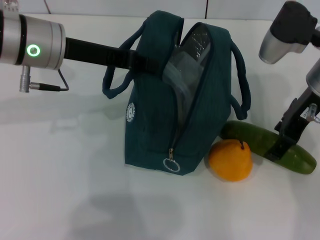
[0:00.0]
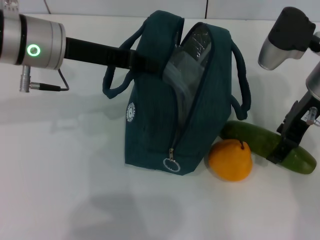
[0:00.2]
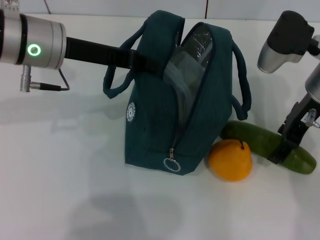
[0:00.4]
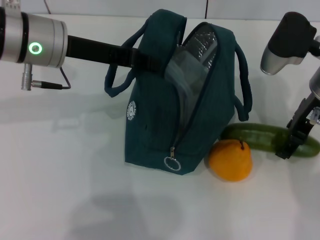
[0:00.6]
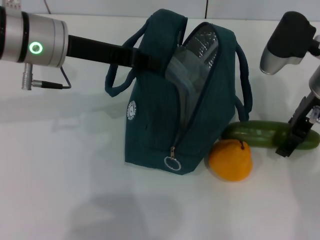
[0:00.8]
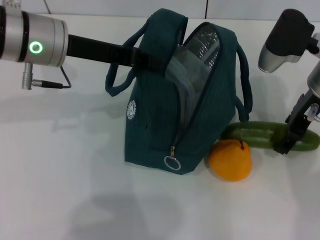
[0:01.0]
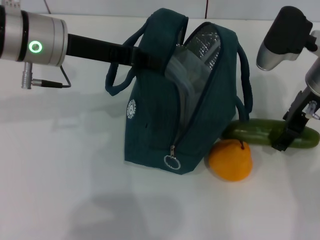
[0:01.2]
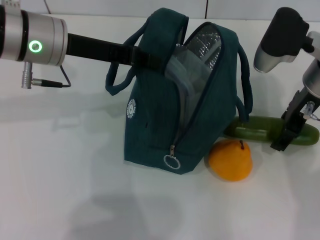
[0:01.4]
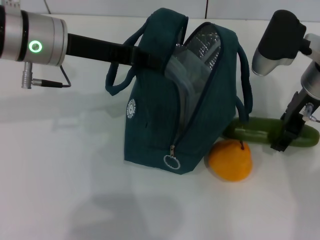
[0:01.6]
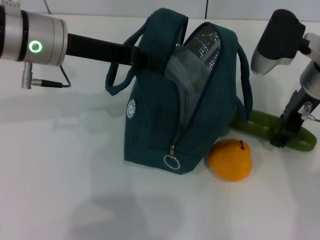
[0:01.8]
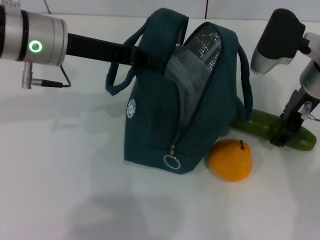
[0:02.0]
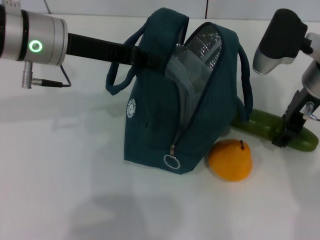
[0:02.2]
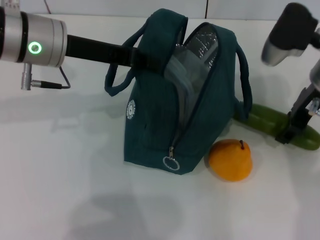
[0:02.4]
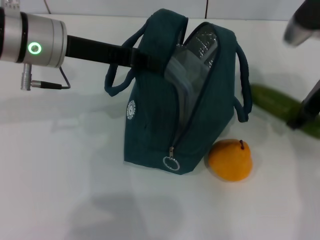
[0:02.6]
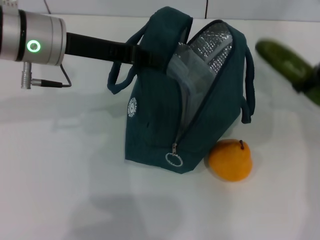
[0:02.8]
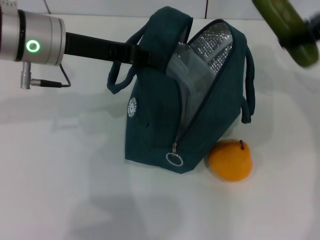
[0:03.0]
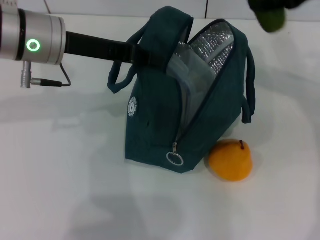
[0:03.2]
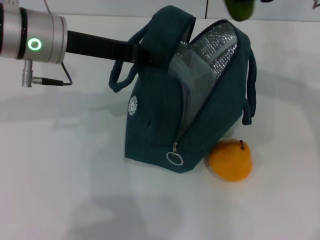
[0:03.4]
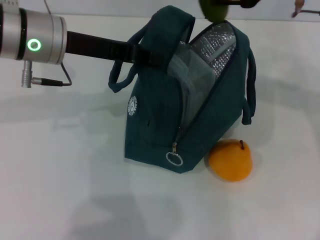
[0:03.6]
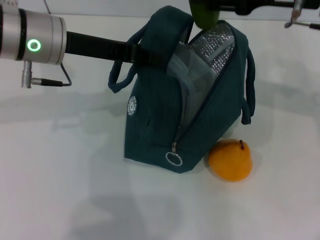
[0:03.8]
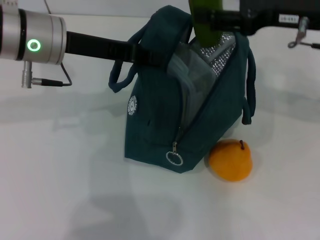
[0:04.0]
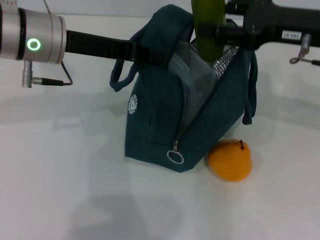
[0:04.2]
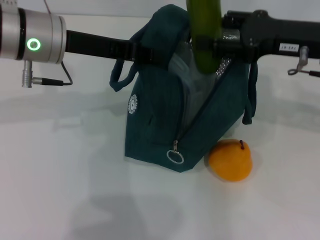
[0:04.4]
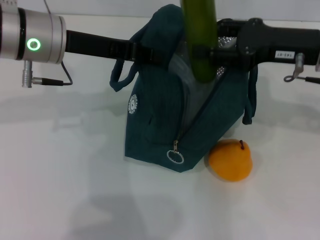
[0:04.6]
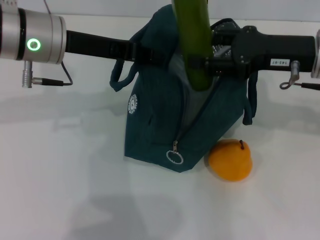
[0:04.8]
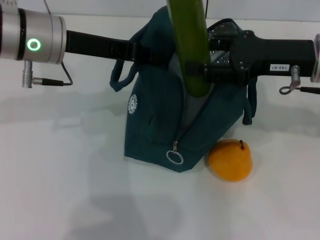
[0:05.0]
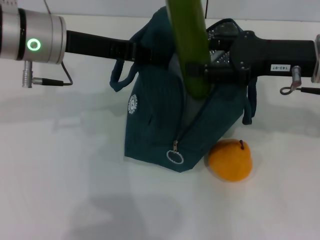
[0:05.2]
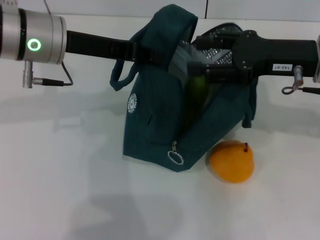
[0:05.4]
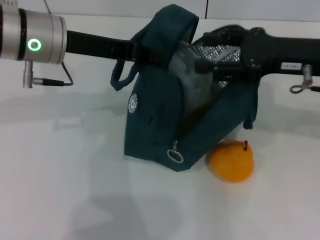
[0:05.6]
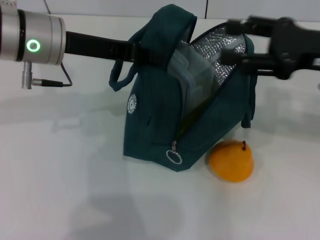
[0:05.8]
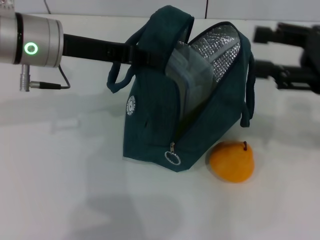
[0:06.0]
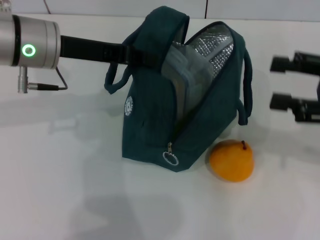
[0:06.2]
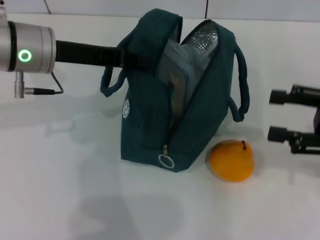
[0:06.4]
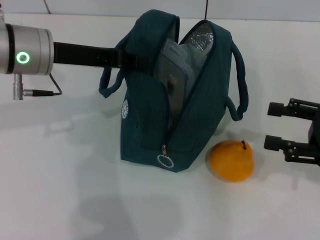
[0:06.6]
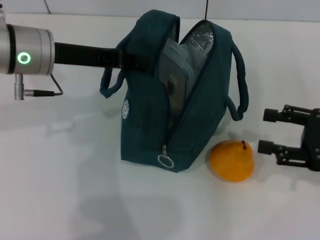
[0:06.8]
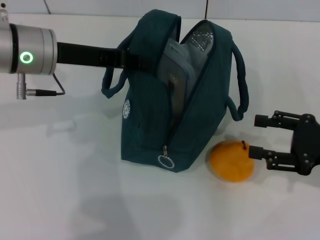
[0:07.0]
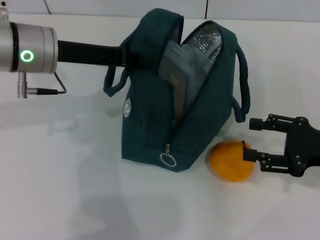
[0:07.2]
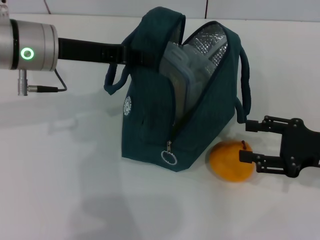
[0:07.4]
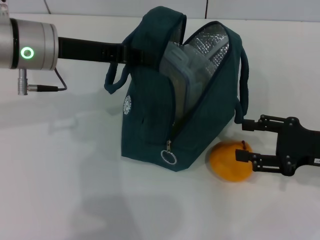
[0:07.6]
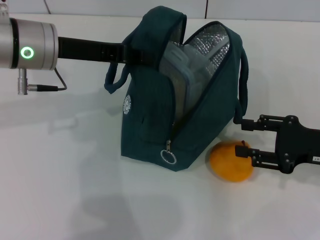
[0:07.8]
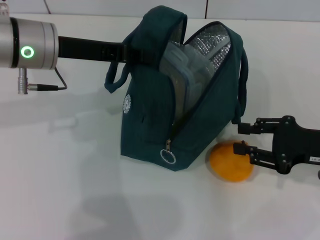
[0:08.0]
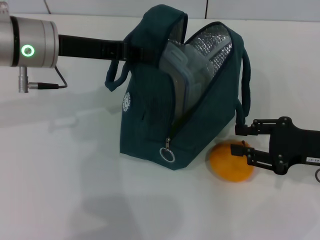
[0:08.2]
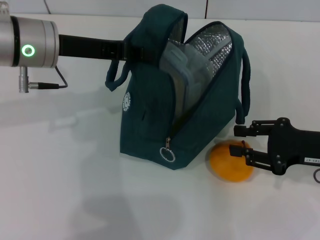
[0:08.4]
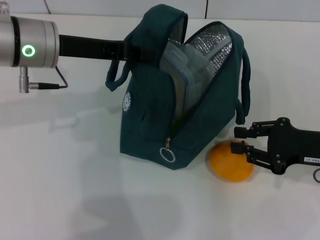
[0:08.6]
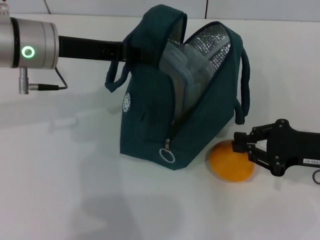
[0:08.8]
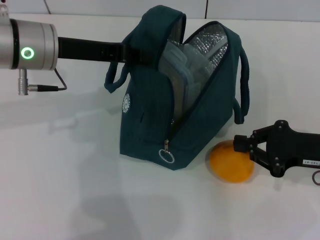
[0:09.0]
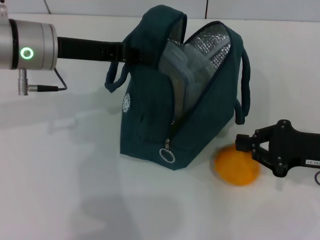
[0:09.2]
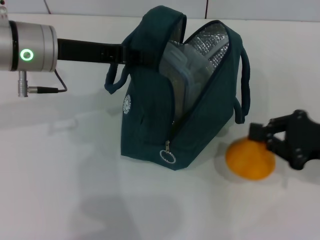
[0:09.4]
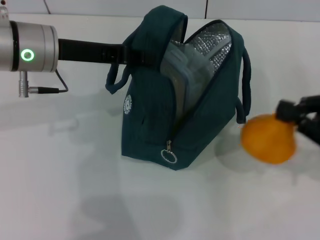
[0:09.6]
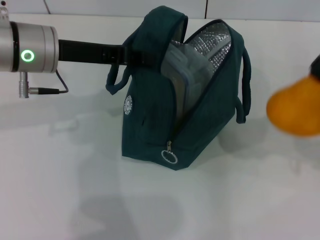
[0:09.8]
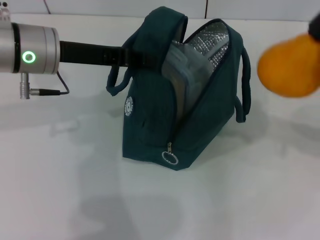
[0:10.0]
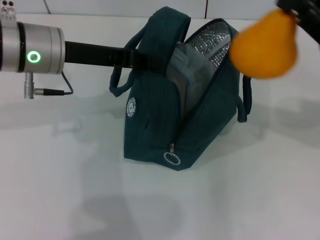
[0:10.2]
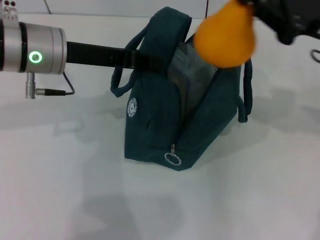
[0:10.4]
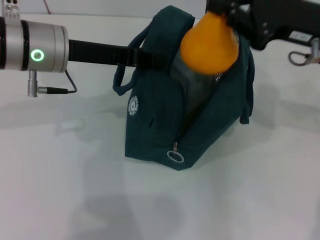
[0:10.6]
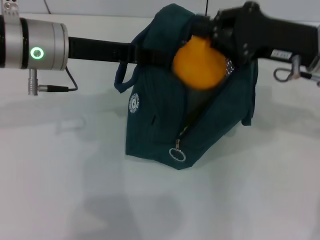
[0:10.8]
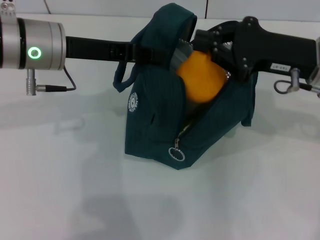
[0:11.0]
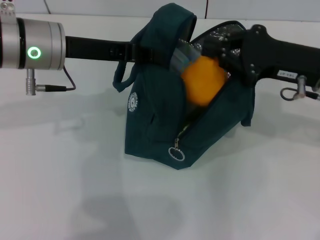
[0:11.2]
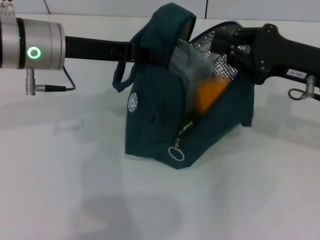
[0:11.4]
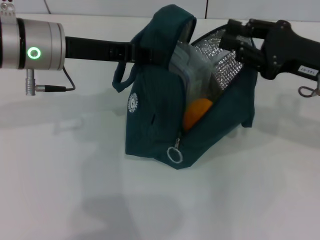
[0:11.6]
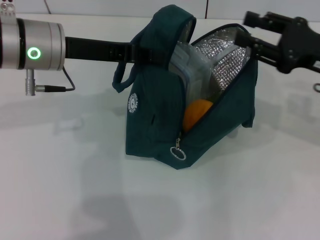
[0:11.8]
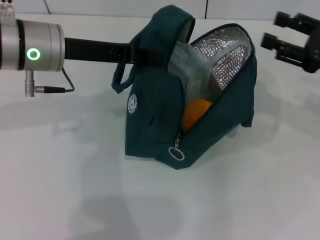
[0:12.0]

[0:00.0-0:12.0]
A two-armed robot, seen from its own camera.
Step, 0:00.0 to 0:02.0: Pick up the cucumber with your right hand.
Step, 0:02.2 to 0:05.8: Put the cucumber into the lunch bag with your right hand.
Step, 0:06.0 to 0:09.0: Grab the pear with your right hand.
0:00.0 to 0:01.6: The grippers make only small movements.
0:01.6 to 0:03.0: The right gripper goes approximately 10 cm upward and to the right.
0:03.0 to 0:04.4: The right gripper goes roughly 5 cm downward.
0:04.4 to 0:06.0: The right gripper is displaced to the right and backward by about 10 cm.
0:06.0 to 0:07.6: The right gripper is displaced downward by some 10 cm.
0:07.6 to 0:09.0: The right gripper closes its fingers.
0:09.0 to 0:10.4: The right gripper moves upward and forward, some 15 cm.
0:10.4 to 0:12.0: The right gripper heads to the right and downward, covering about 10 cm, and opens.

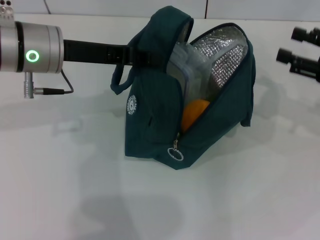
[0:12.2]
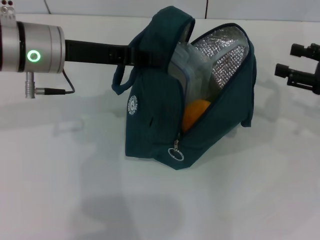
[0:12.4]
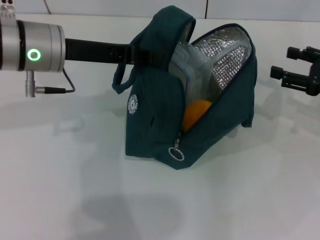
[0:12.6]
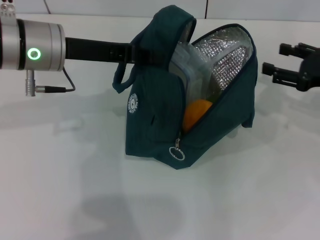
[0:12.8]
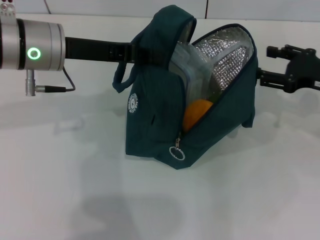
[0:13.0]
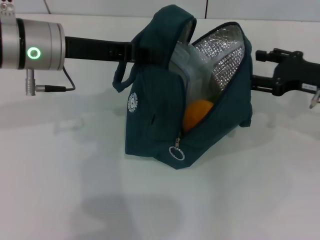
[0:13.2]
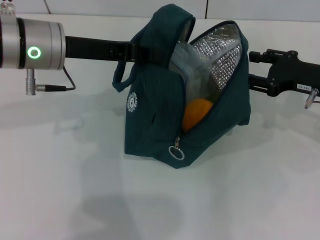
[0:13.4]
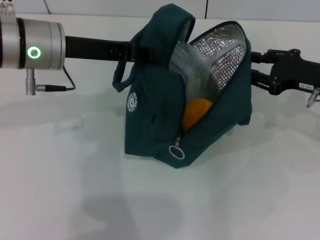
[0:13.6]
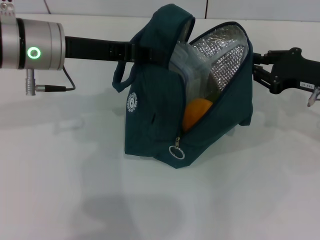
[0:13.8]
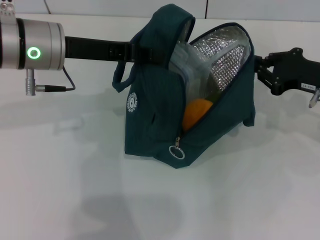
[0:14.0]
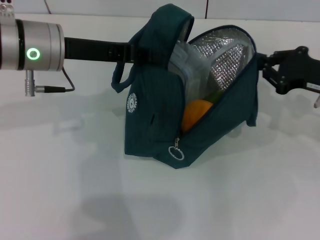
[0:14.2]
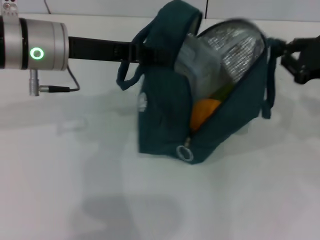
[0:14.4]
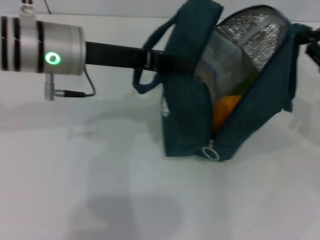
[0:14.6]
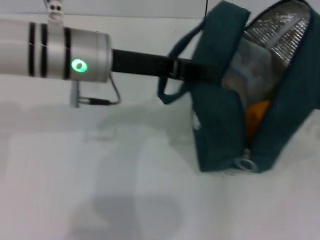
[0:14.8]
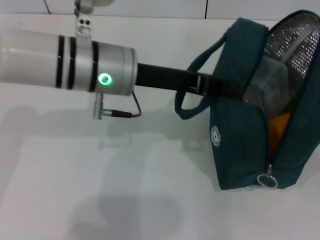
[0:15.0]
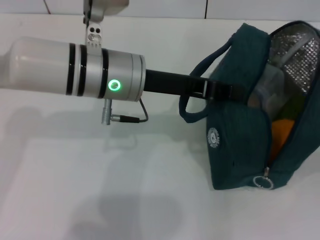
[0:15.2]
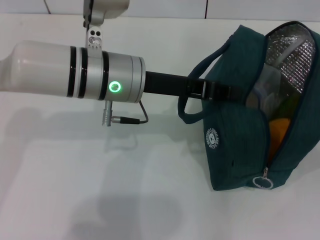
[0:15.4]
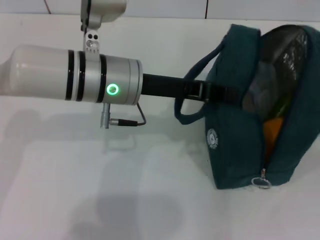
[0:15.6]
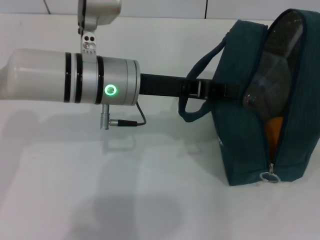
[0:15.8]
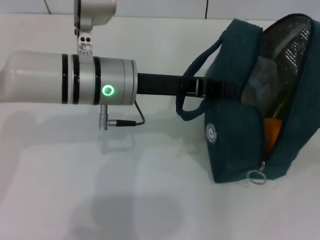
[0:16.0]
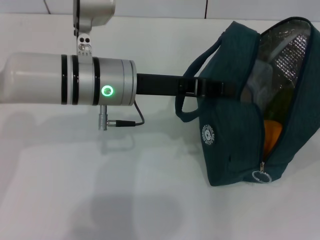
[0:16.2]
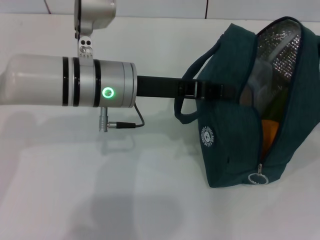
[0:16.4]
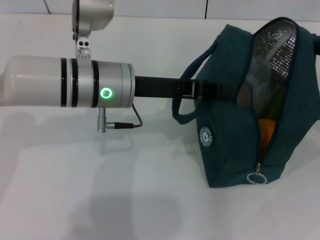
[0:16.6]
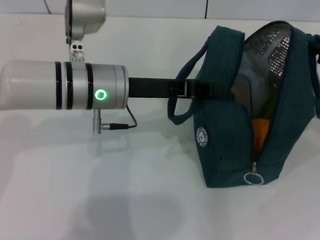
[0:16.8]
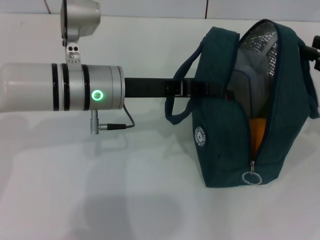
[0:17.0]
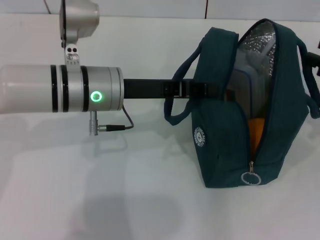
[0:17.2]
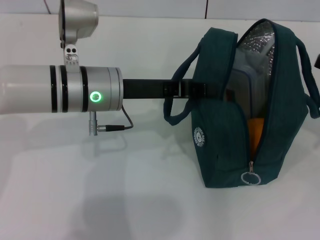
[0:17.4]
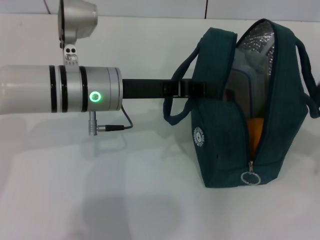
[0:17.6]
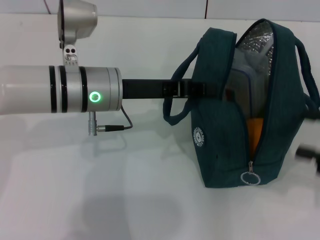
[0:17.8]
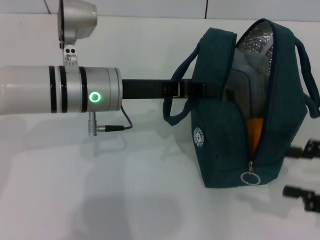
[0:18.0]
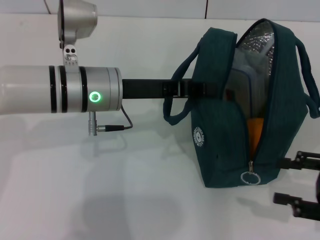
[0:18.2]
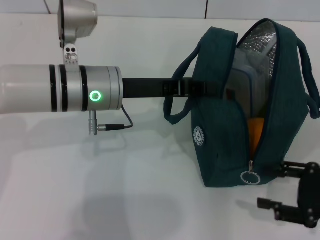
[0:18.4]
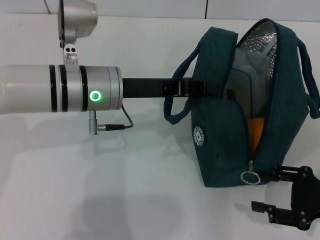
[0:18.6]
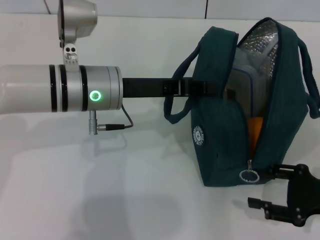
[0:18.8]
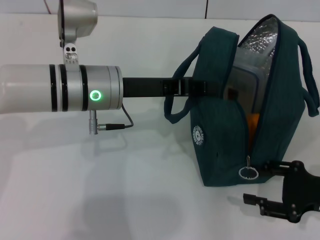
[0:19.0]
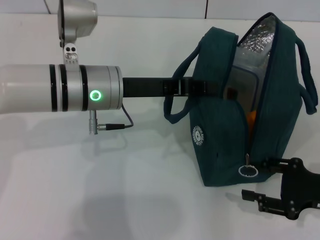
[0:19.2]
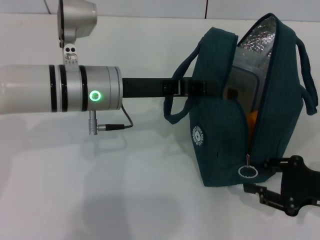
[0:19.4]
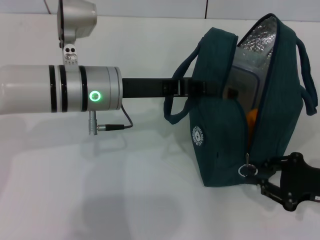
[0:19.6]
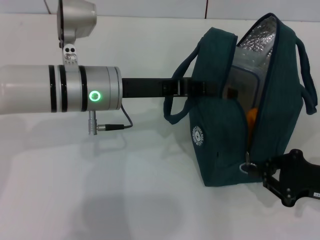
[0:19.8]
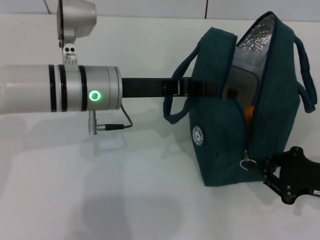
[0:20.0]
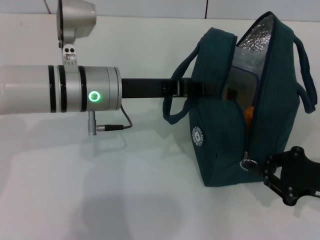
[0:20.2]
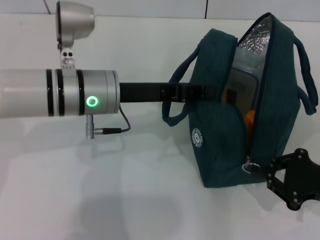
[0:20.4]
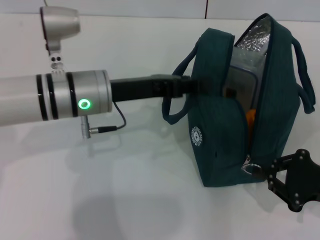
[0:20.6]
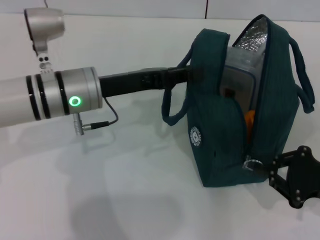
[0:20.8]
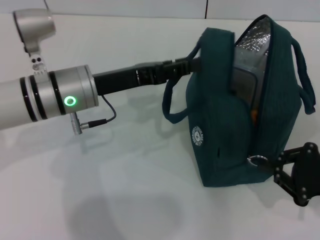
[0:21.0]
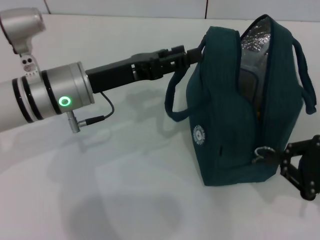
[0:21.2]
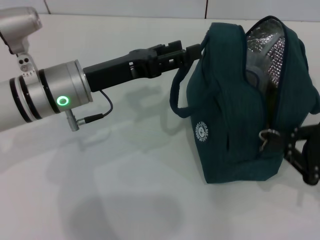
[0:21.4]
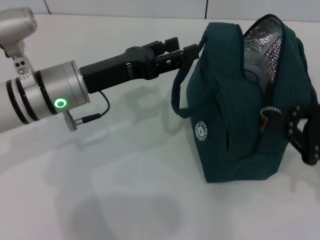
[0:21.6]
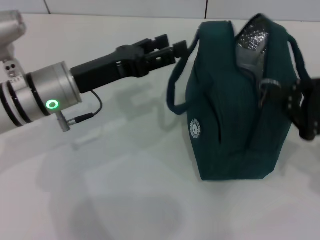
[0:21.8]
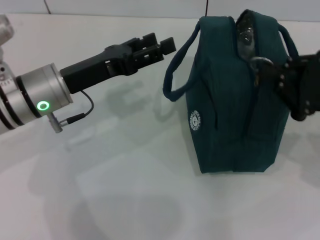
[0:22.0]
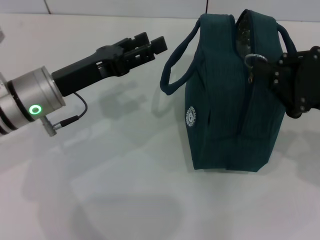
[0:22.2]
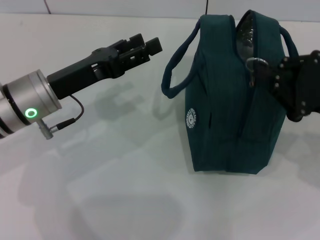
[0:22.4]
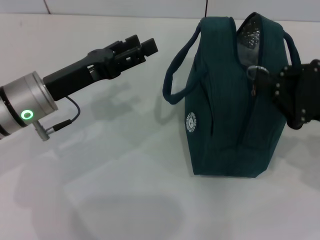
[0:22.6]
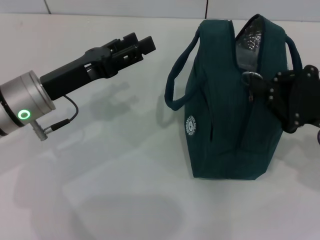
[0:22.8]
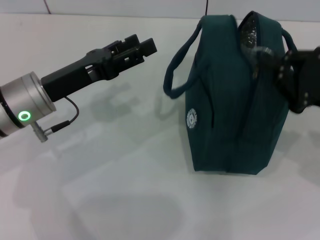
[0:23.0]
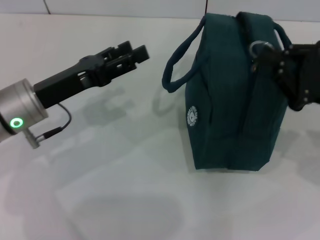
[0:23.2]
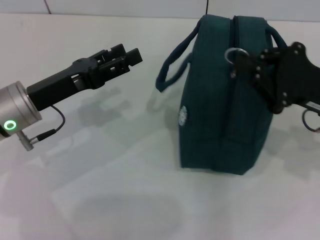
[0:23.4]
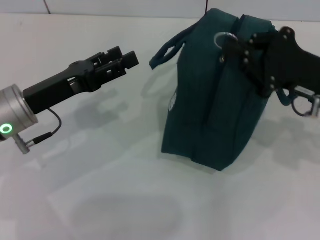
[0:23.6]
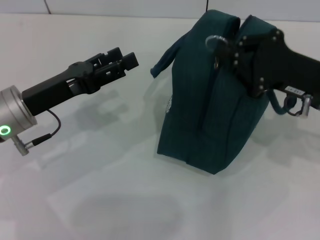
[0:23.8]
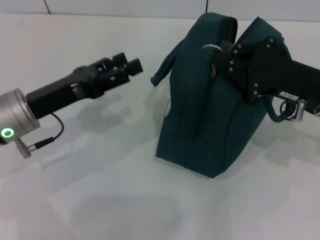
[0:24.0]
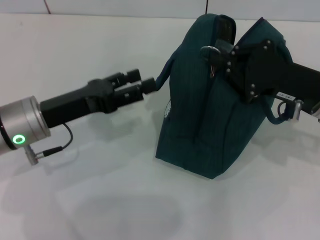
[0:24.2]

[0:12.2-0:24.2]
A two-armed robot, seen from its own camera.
Step, 0:12.2 to 0:17.4: Hold the lunch bag with your right hand.
Step, 0:17.6 to 0:21.0: Hold the lunch bag with your left hand.
0:12.2 to 0:13.8: The right gripper travels to the left by some 5 cm, and closes up.
0:13.8 to 0:15.2: The left gripper goes about 10 cm to the right, while the right gripper moves to the right and backward, about 10 cm.
0:16.6 to 0:18.2: The right gripper moves backward and downward, approximately 15 cm, and opens.
0:18.2 to 0:19.8: The right gripper ends up roughly 5 cm from where it was, and closes.
0:19.8 to 0:21.2: The left gripper opens its fingers.
0:21.2 to 0:22.6: The right gripper heads forward, covering some 5 cm. Meanwhile the left gripper moves approximately 5 cm.
0:22.6 to 0:24.2: The right gripper shifts some 5 cm to the left.
